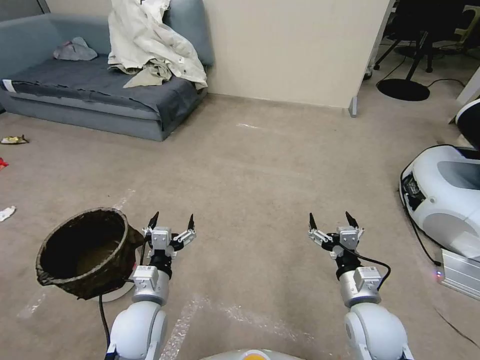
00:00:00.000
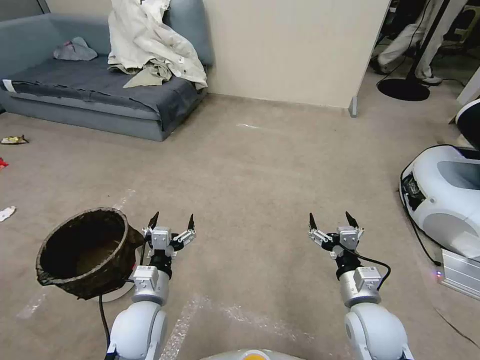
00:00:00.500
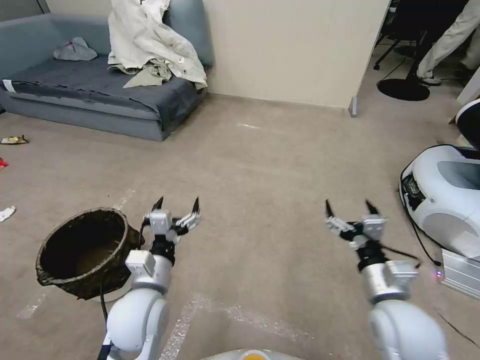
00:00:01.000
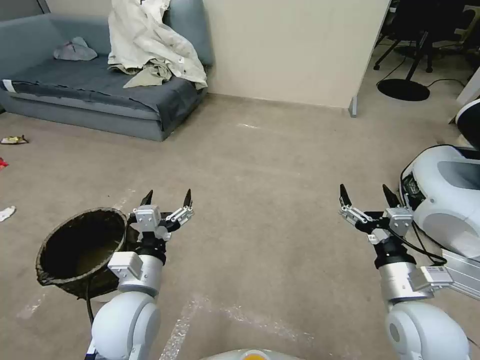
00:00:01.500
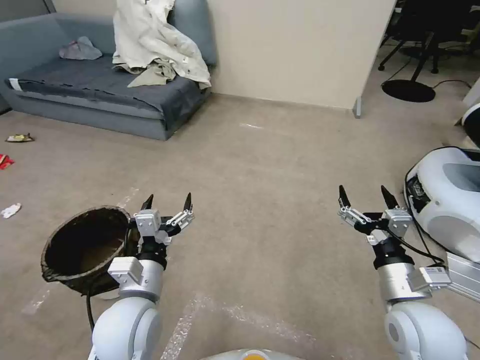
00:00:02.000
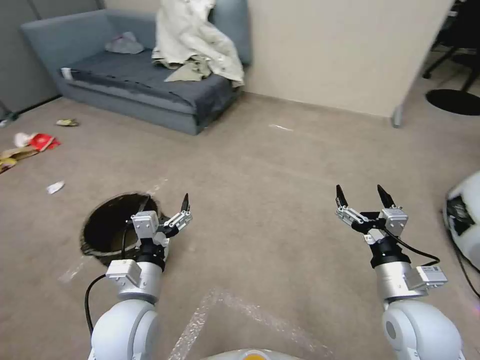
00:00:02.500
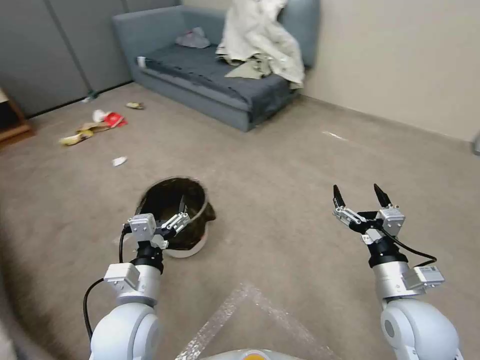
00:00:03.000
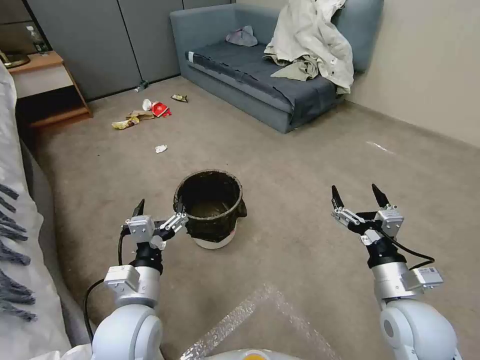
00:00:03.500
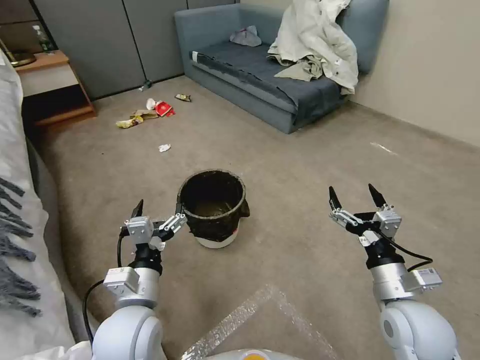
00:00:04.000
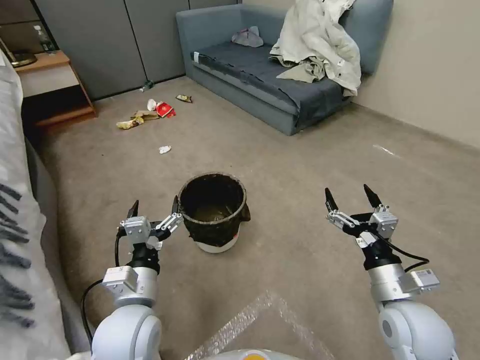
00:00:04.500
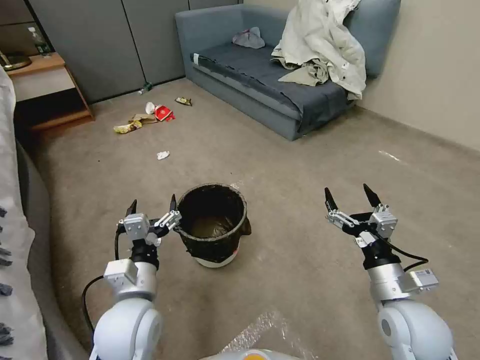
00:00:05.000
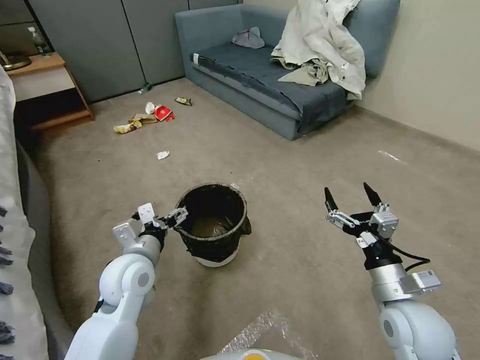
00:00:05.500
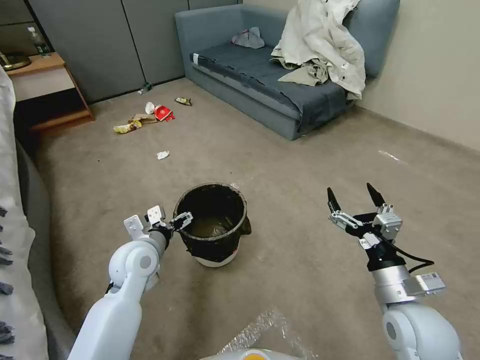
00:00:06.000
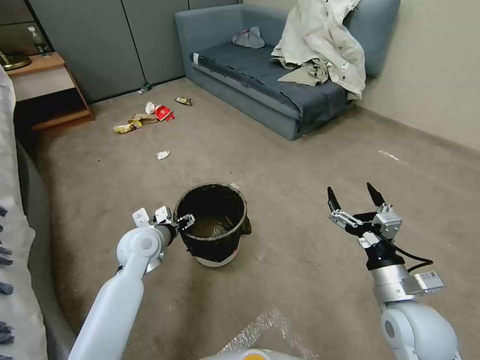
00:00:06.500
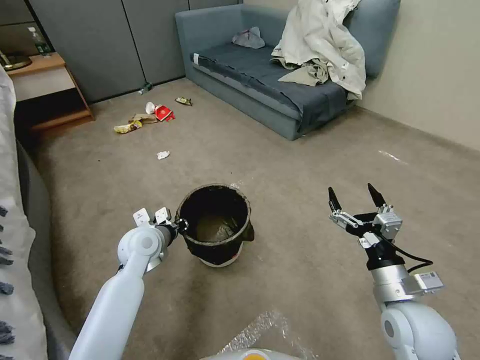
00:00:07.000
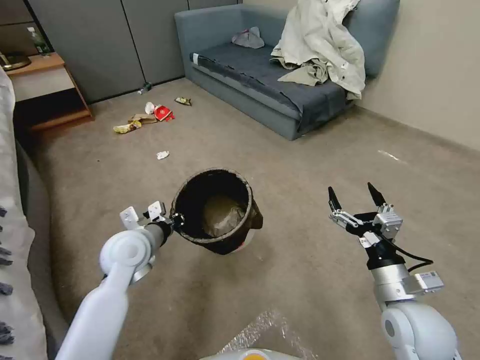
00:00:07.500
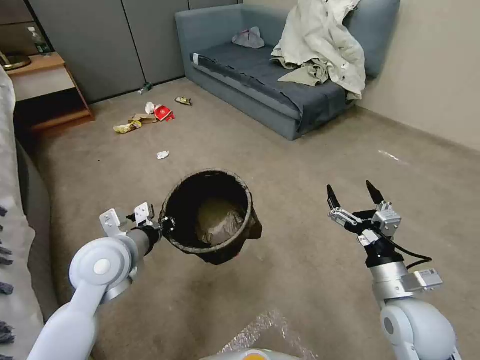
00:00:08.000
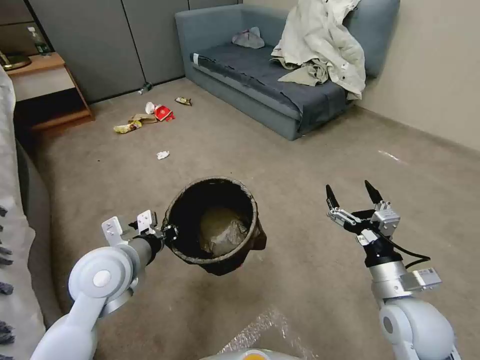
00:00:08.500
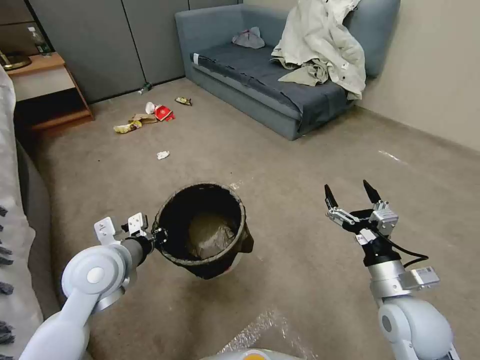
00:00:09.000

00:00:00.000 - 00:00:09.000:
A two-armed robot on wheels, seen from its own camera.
Task of the whole recording: Pick up the trash can from the floor.
00:00:04.500 - 00:00:07.000: The left gripper moves forward, some 20 cm, and closes.
00:00:07.000 - 00:00:09.000: The left gripper is displaced backward and upward by approximately 15 cm.
